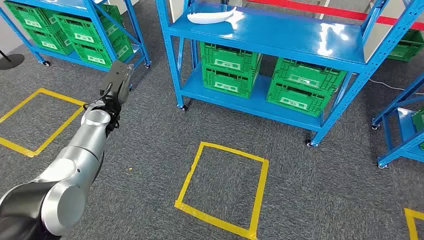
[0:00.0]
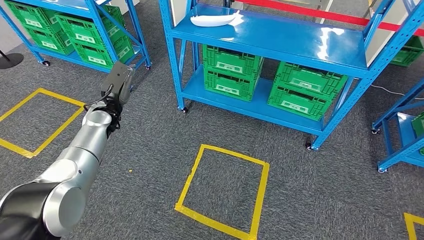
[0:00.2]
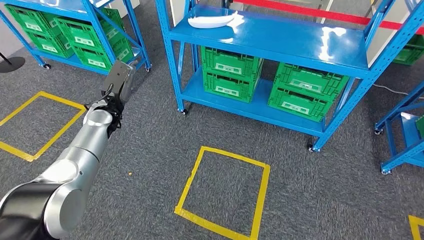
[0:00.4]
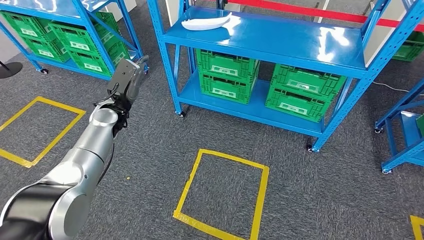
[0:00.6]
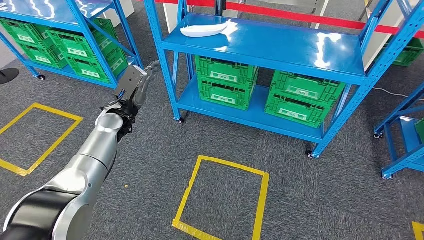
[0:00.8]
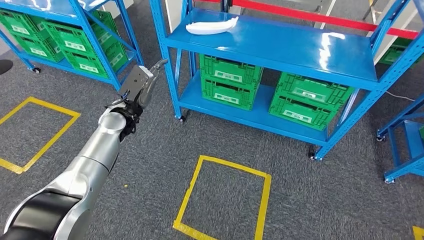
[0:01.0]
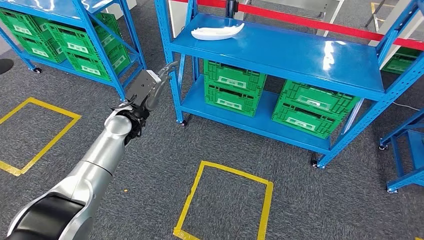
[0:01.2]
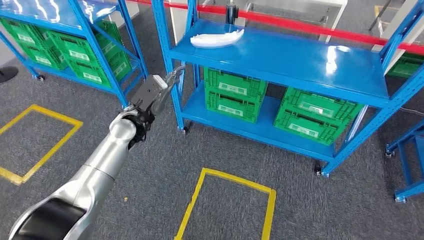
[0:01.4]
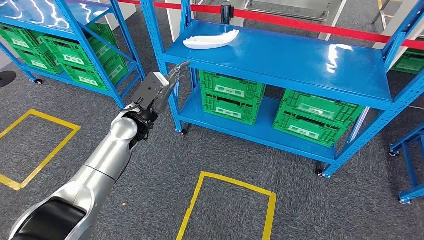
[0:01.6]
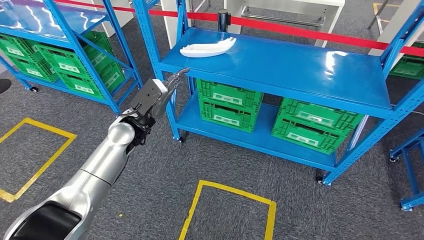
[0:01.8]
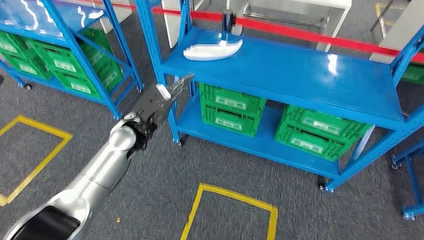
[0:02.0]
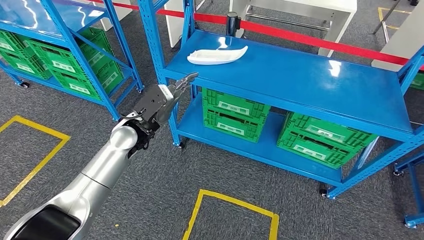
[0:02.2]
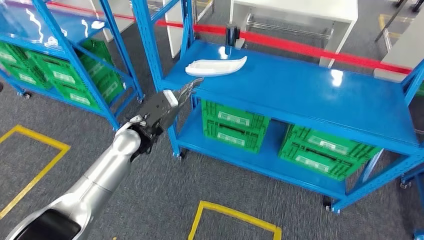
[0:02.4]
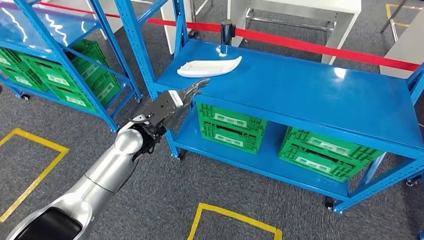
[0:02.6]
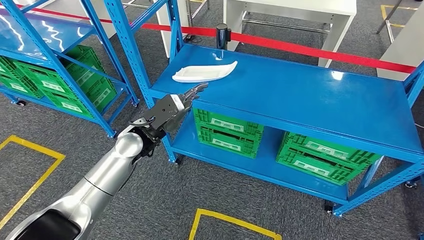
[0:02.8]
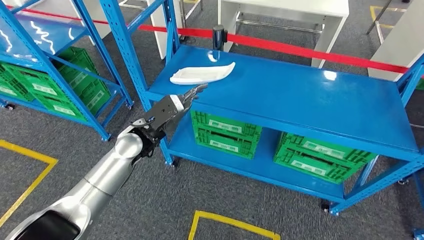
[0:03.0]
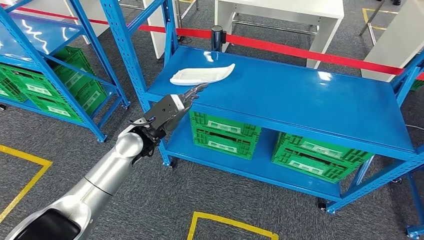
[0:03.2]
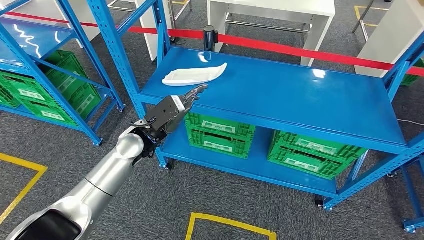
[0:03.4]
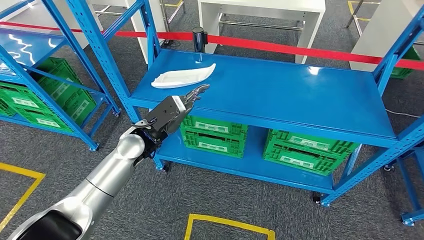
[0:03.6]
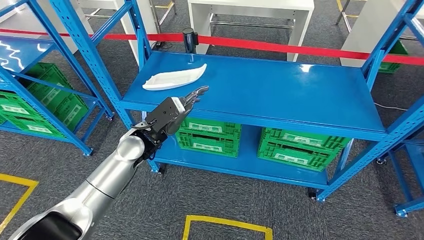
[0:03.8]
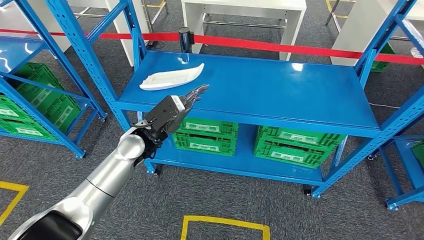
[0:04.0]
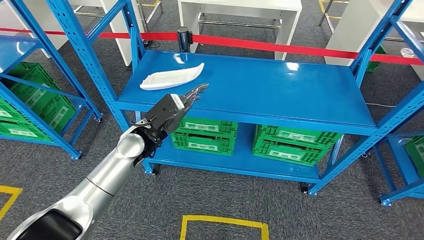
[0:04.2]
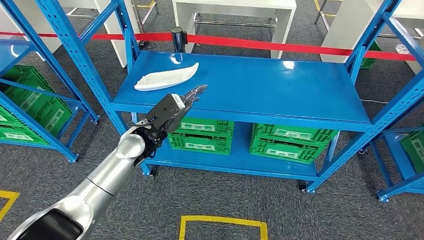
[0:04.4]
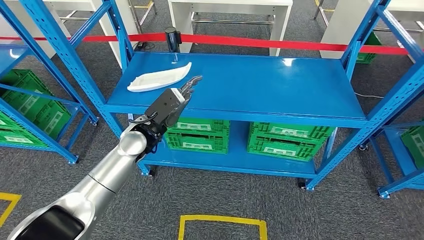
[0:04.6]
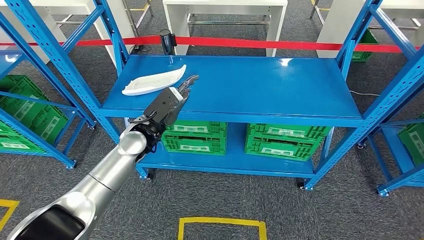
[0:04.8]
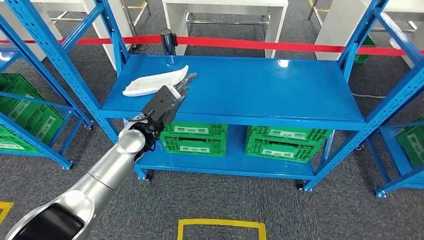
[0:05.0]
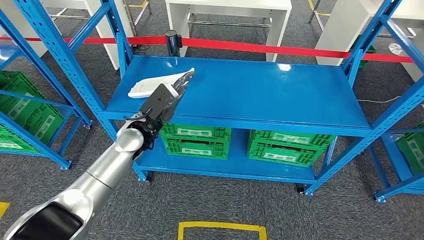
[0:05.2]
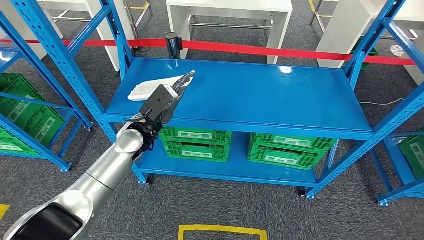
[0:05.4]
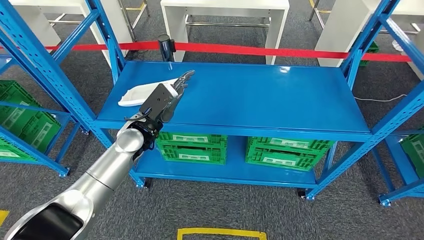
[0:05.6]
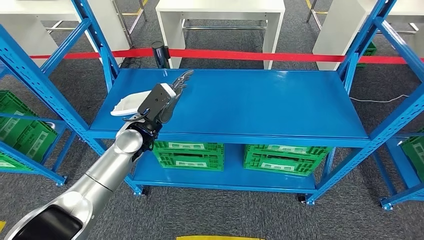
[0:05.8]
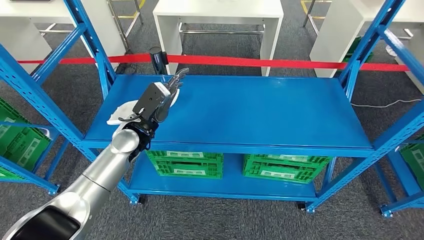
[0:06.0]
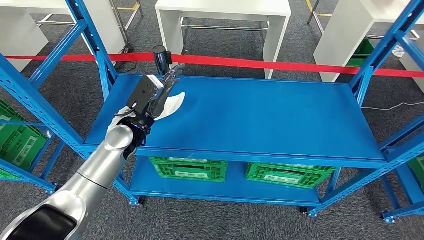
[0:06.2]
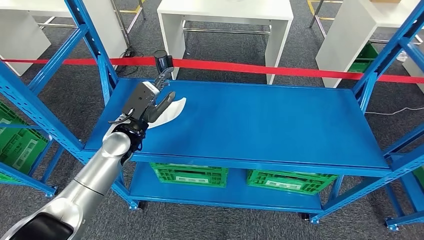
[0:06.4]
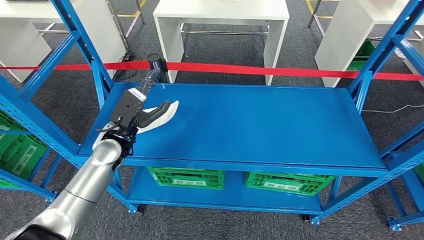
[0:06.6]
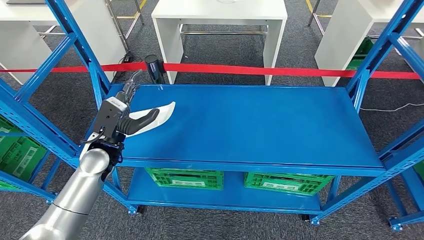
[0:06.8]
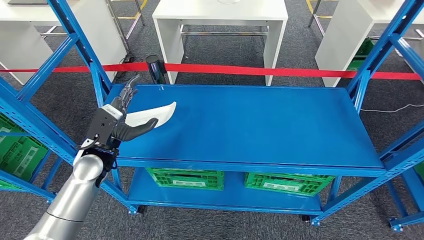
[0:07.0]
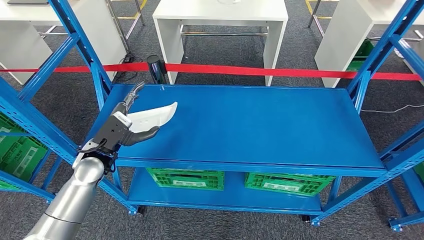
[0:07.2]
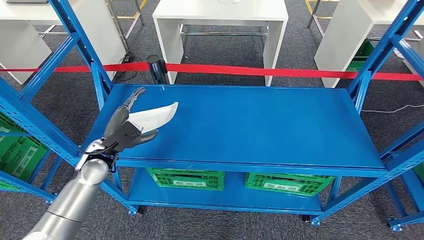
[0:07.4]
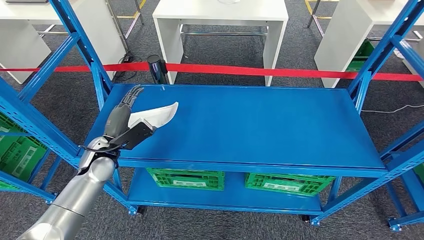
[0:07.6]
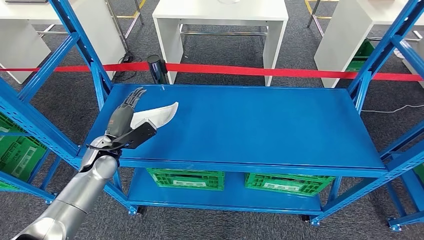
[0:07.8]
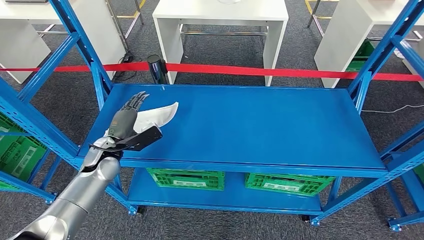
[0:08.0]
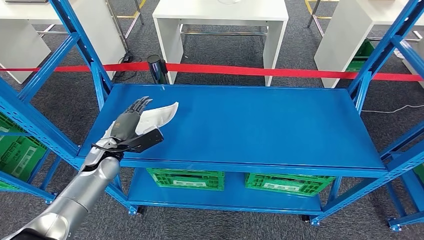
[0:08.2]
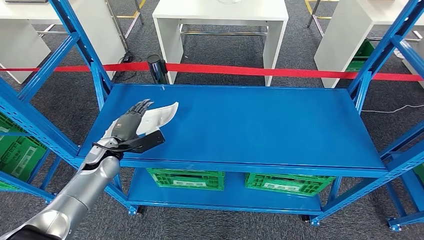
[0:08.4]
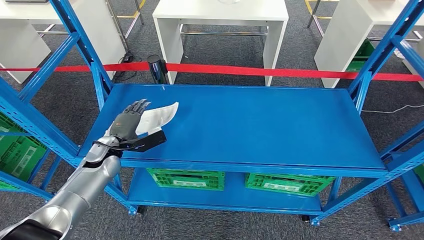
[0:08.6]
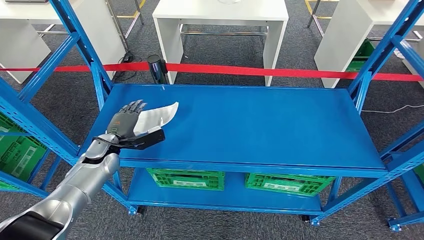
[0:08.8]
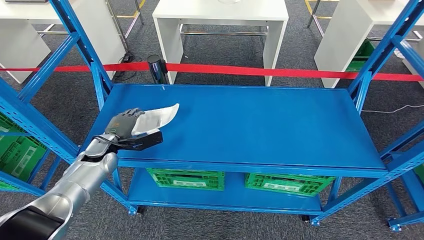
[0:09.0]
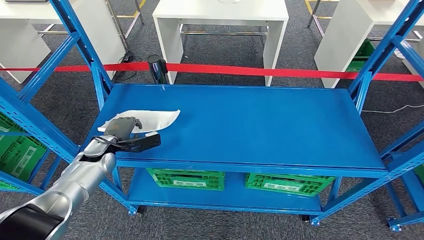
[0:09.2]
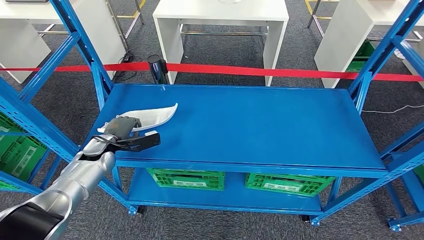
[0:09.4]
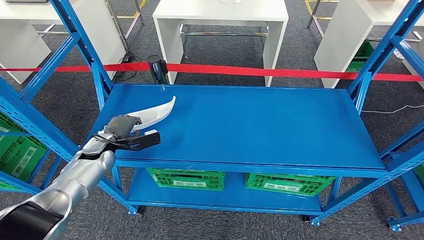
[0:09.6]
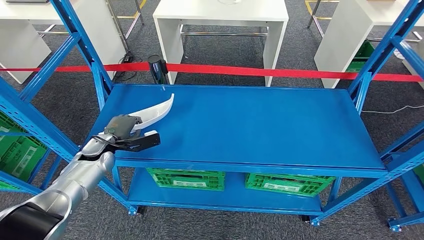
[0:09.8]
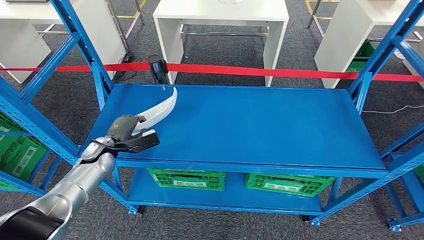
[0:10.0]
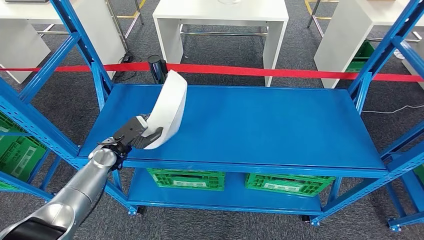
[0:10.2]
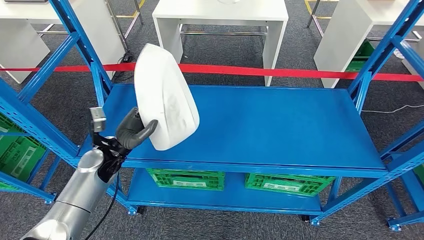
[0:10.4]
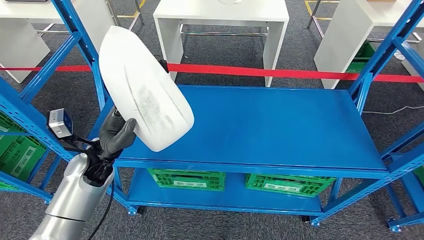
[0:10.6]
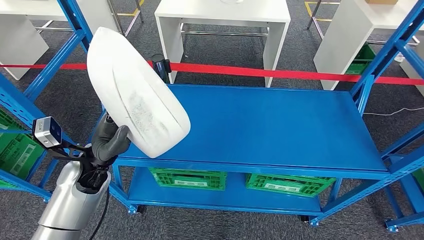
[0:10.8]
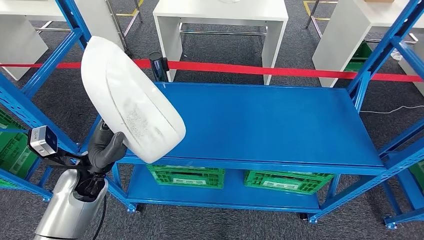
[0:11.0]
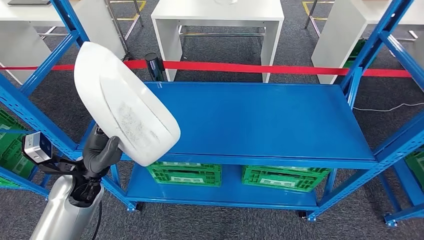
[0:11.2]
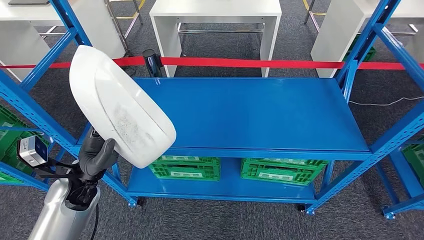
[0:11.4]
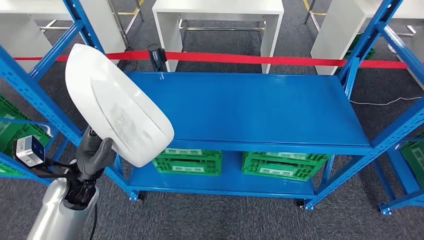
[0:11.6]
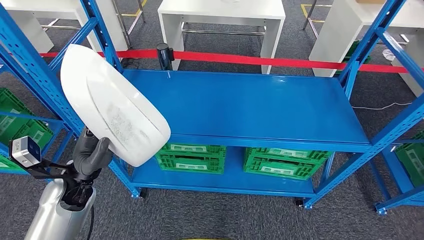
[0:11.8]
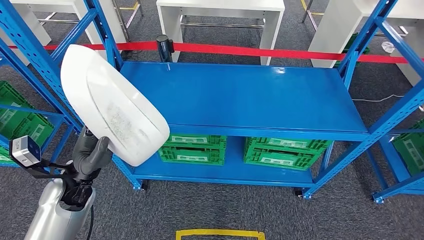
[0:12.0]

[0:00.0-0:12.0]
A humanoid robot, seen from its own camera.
Step, 0:00.0 to 0:11.2: Pick up the small component from the shelf.
0:07.6 to 0:09.0: The left hand ends up roughly 5 cm from where it was.
0:09.0 to 0:10.4: The left hand shifts by approximately 5 cm.

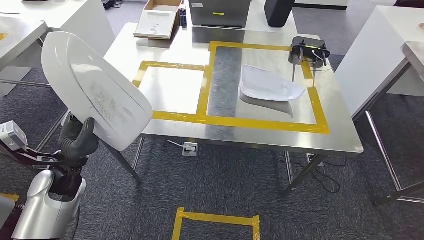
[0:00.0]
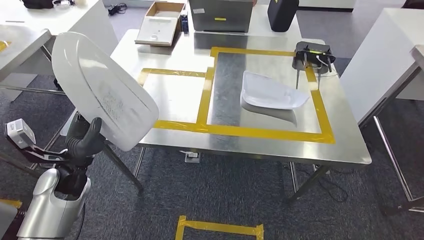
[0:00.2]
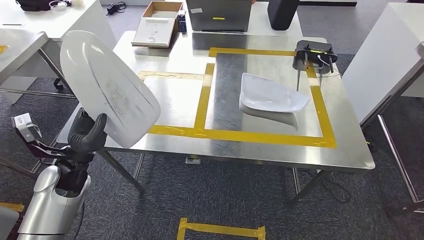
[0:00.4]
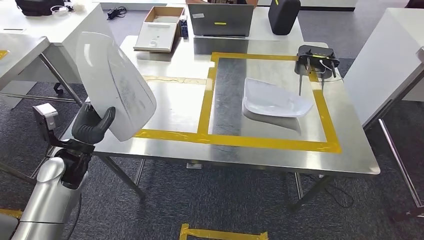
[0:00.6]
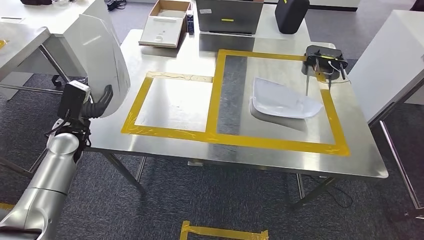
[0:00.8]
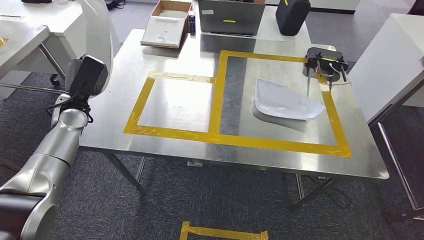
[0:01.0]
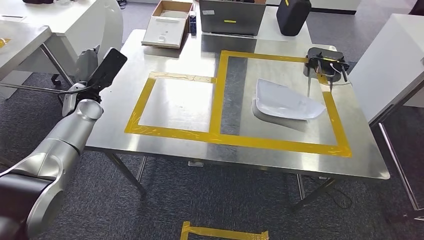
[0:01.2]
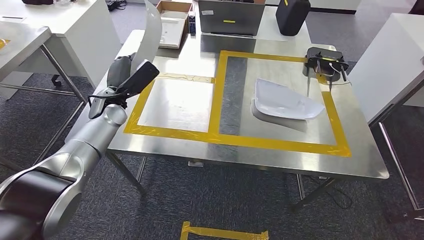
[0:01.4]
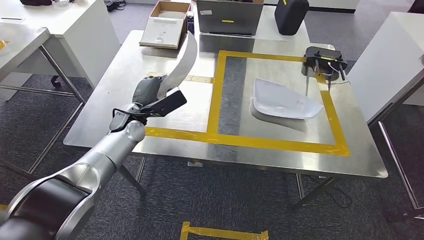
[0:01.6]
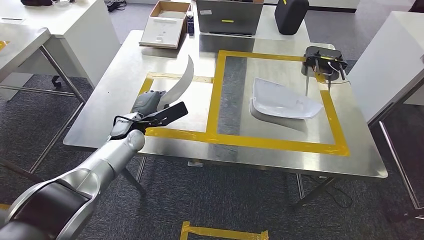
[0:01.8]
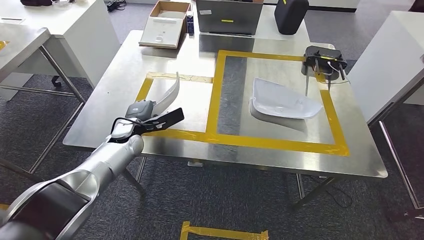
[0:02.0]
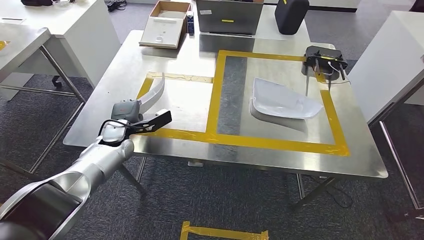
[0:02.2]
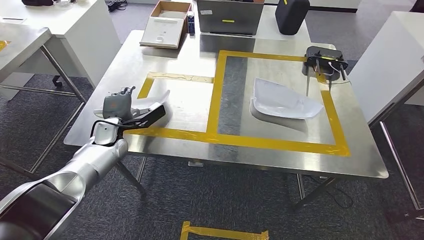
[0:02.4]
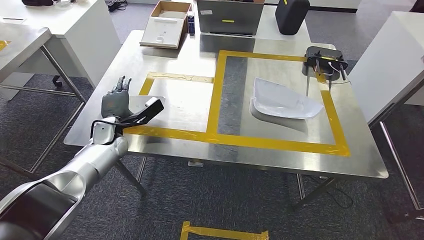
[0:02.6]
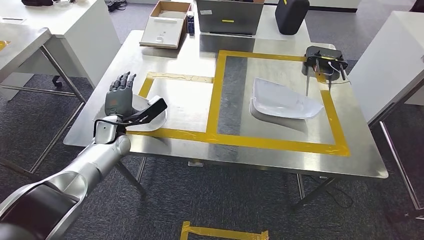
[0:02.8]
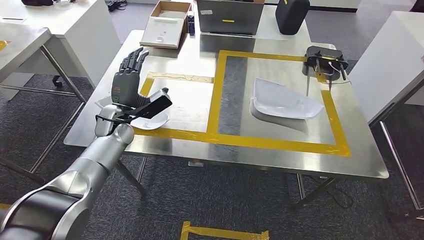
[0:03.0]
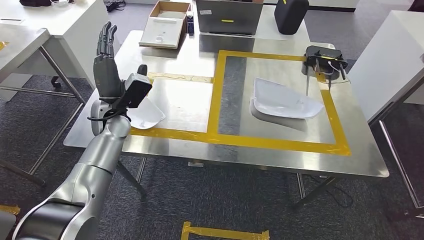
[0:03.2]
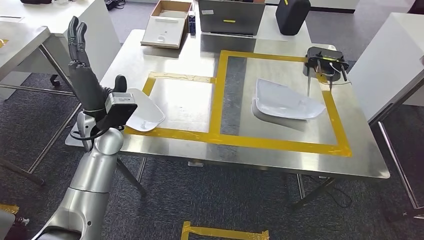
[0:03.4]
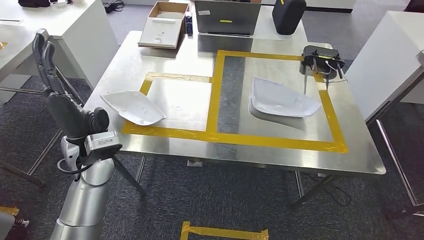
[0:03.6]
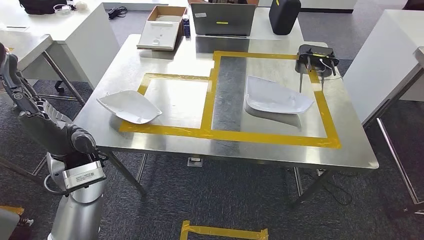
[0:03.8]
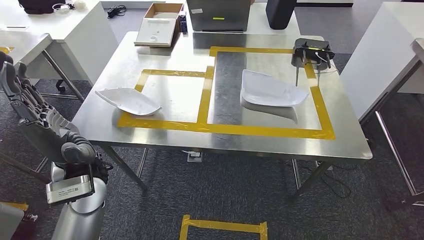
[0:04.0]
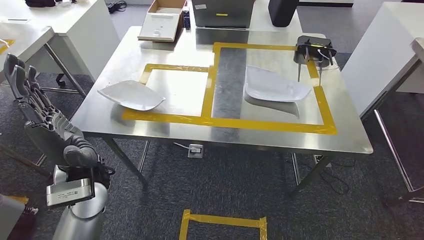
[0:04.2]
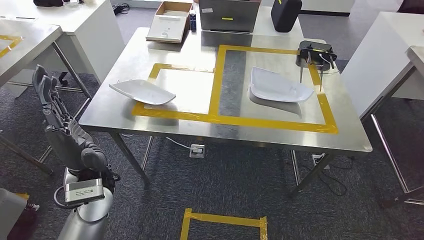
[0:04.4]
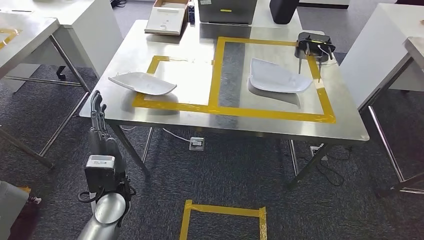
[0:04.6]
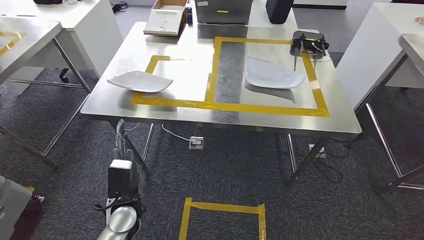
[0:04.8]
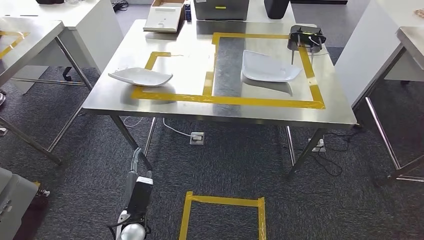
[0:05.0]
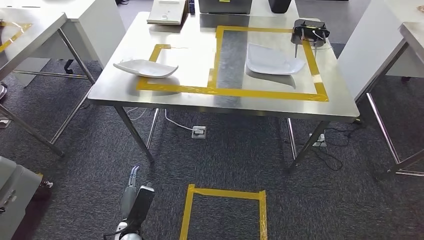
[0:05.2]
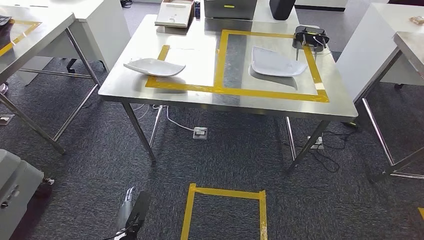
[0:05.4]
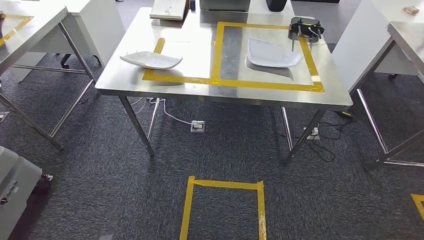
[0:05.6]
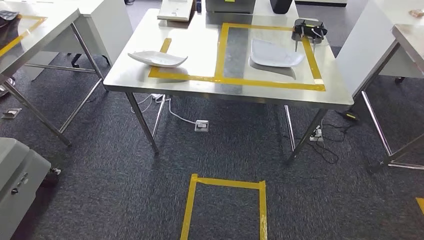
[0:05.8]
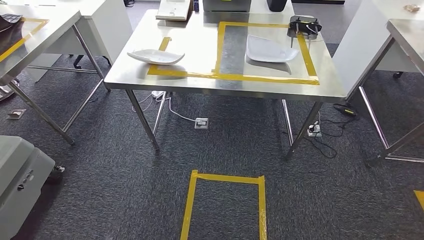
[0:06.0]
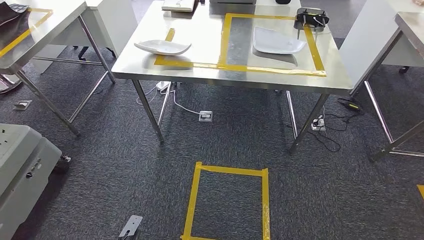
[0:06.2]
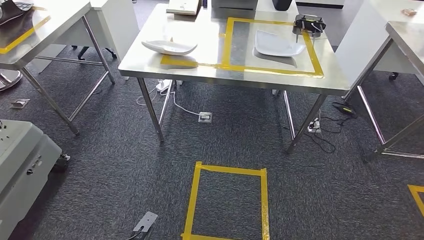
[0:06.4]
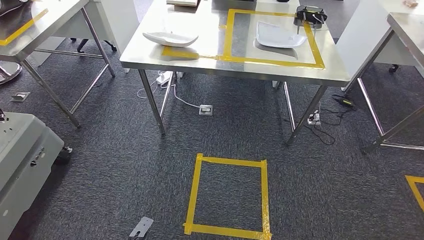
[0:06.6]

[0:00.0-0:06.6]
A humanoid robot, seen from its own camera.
Step, 0:01.6 to 0:05.8: Insert the small component into the corresponding slot on the workbench.
